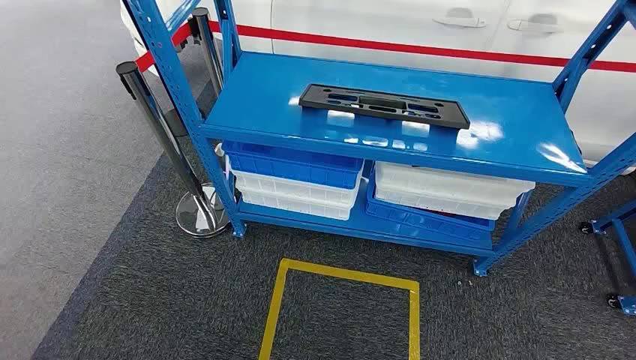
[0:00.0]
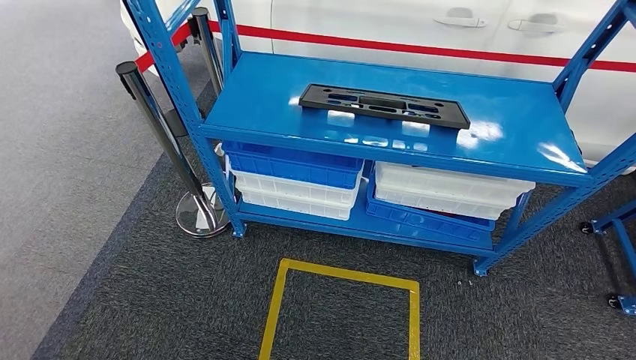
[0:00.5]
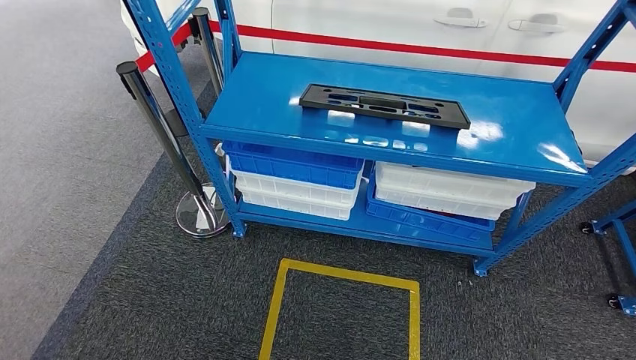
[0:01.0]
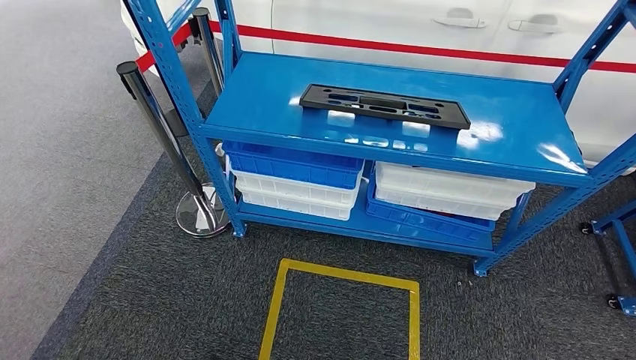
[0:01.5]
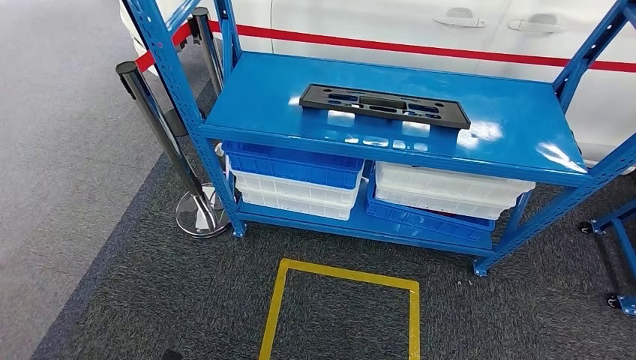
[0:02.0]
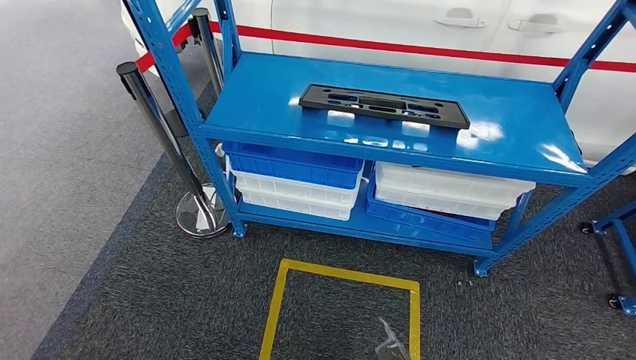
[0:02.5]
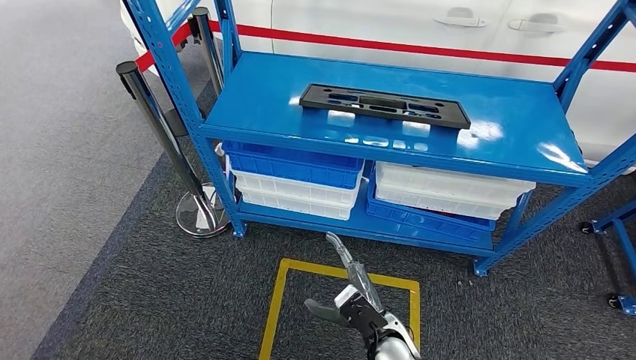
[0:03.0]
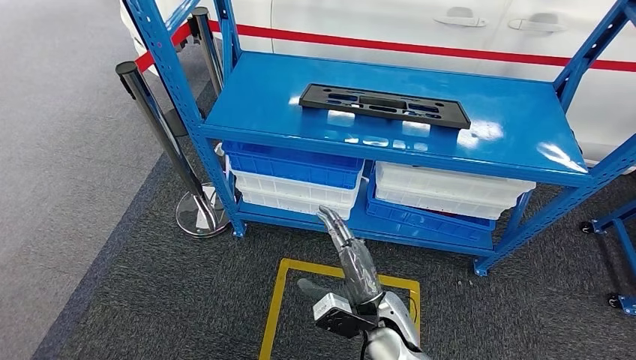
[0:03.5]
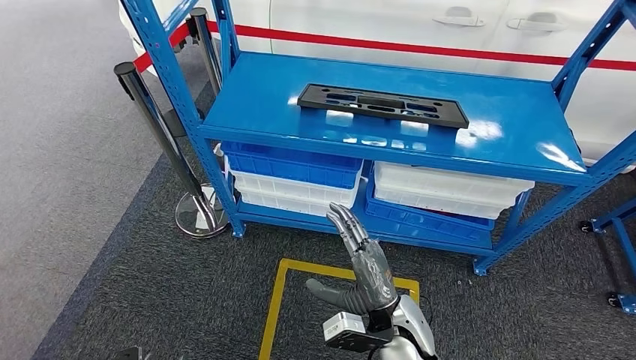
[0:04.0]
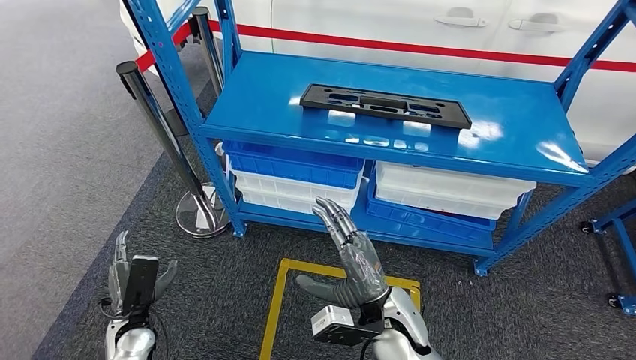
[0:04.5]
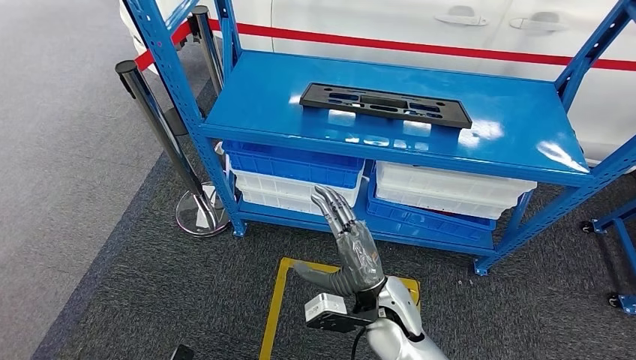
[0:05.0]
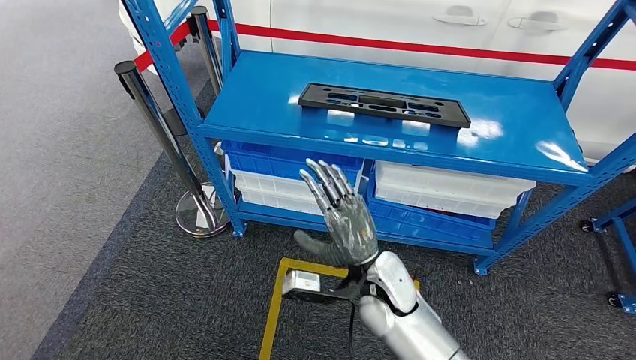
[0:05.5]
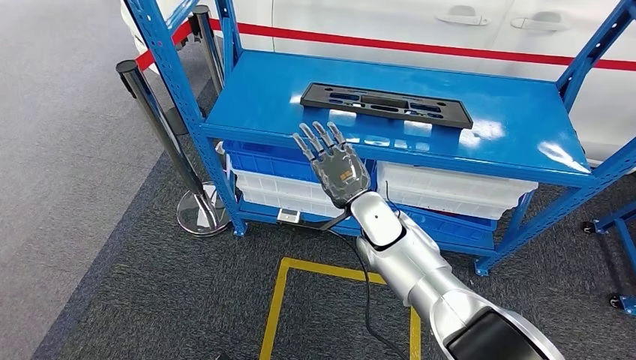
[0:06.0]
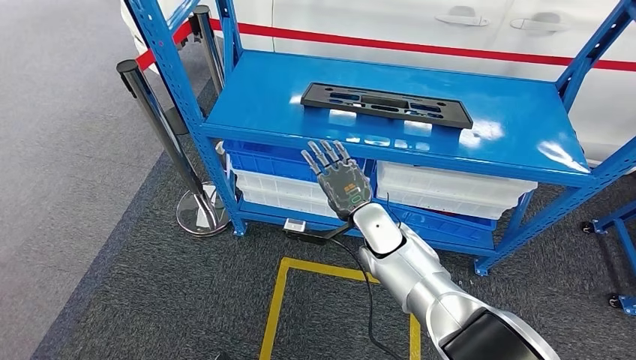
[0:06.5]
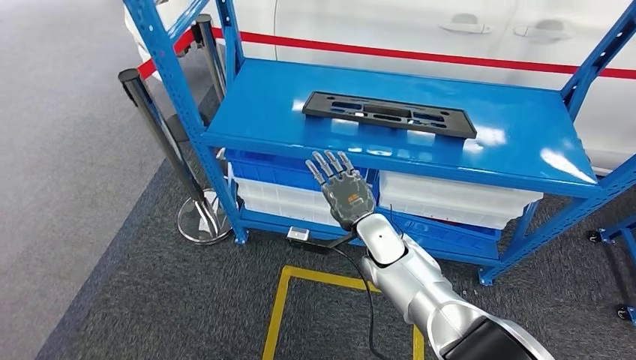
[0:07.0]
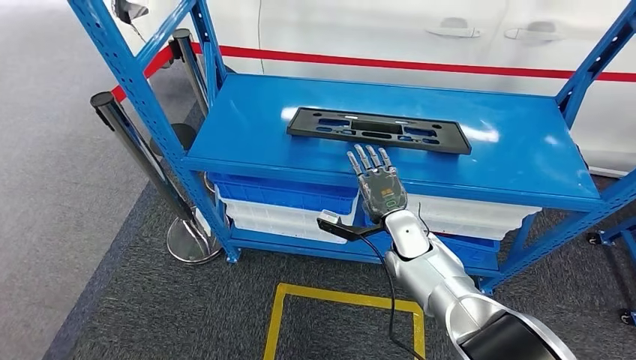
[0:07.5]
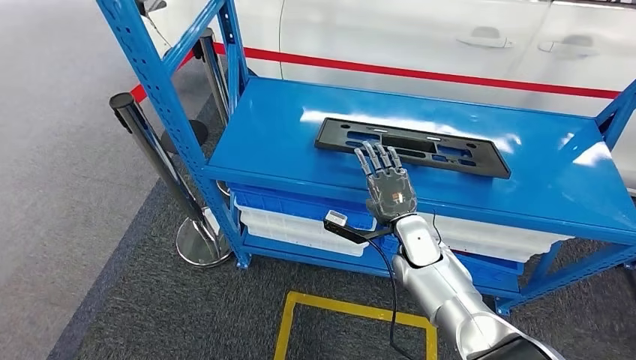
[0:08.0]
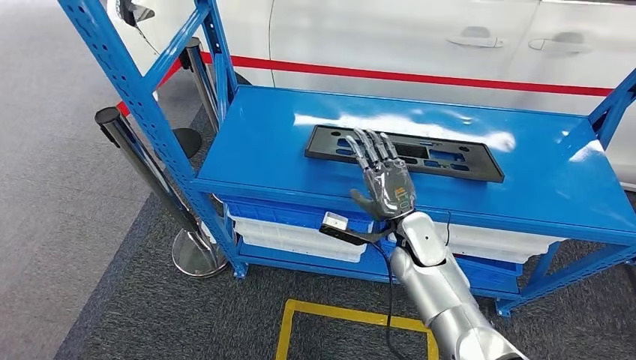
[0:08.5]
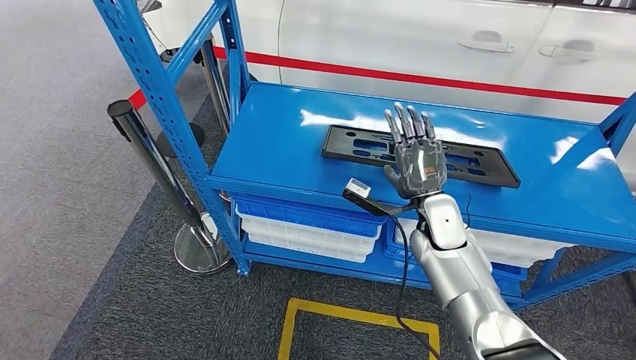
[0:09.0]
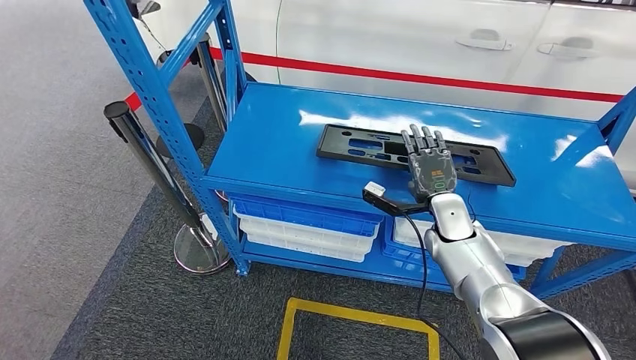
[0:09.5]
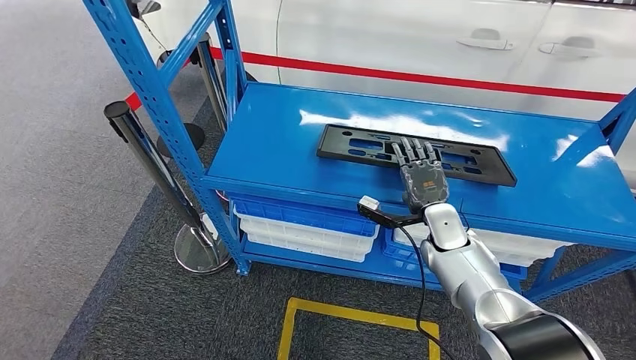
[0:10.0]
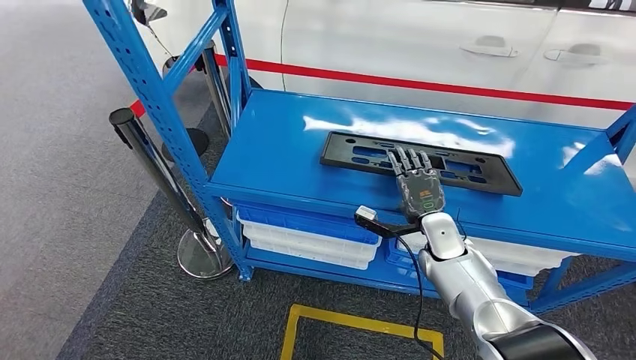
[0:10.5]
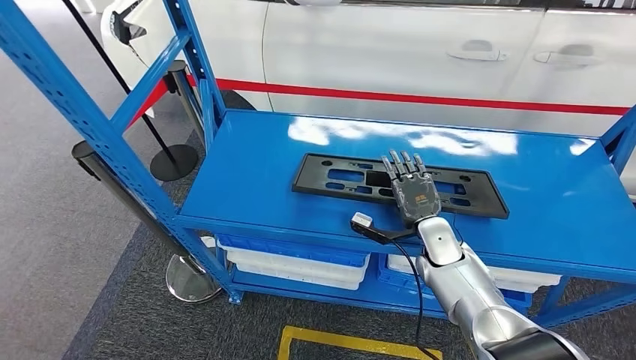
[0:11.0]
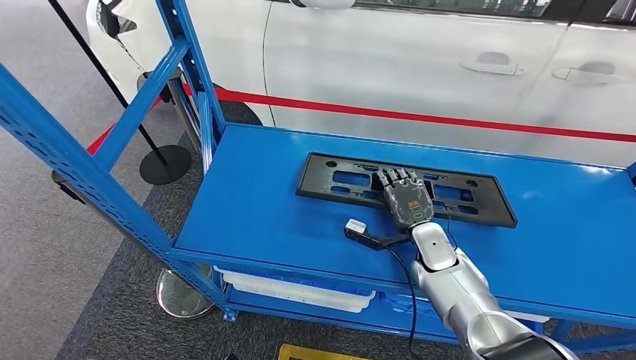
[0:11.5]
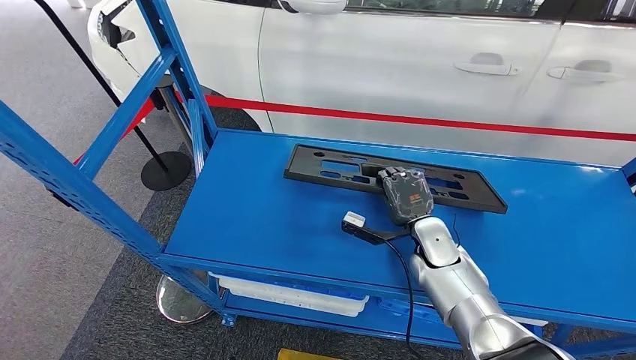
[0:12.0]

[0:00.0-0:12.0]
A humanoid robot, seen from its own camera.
0:02.0 to 0:04.0: The right hand shifts about 35 cm upward, forward and to the left. The left hand moves approximately 10 cm to the right and comes back.
0:04.0 to 0:06.0: The left hand travels to the right by about 5 cm, and moves roughly 15 cm forward and comes back, while the right hand shifts some 15 cm forward and upward.

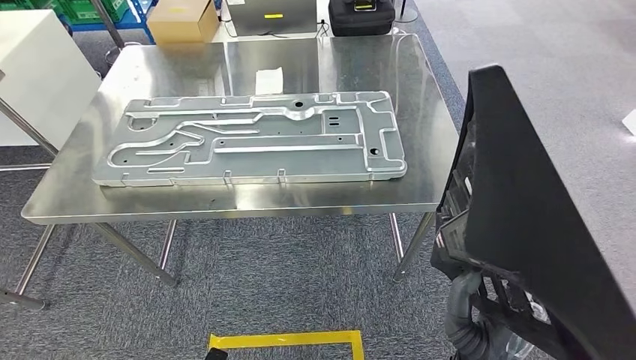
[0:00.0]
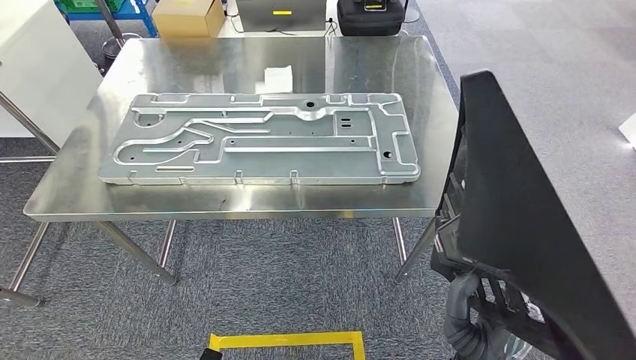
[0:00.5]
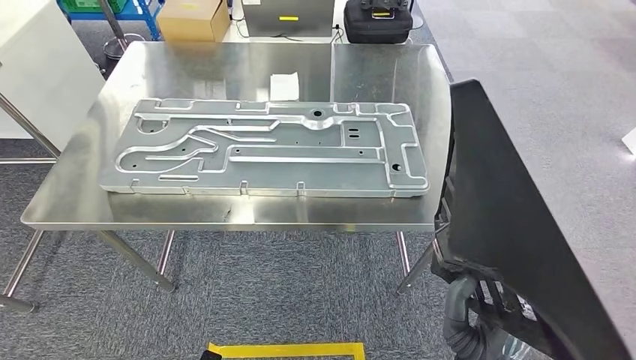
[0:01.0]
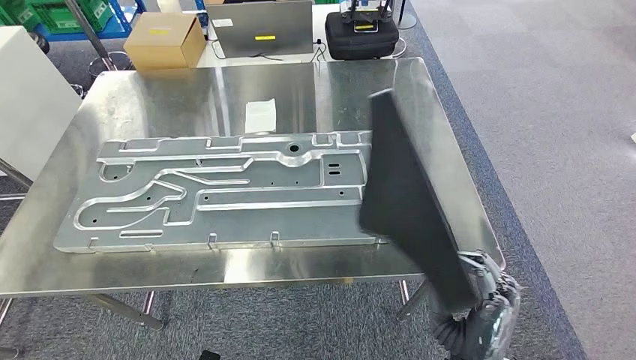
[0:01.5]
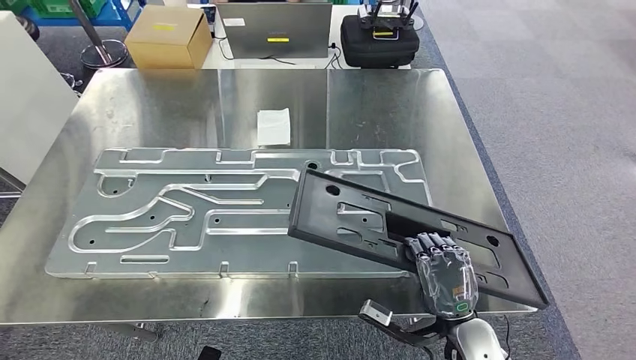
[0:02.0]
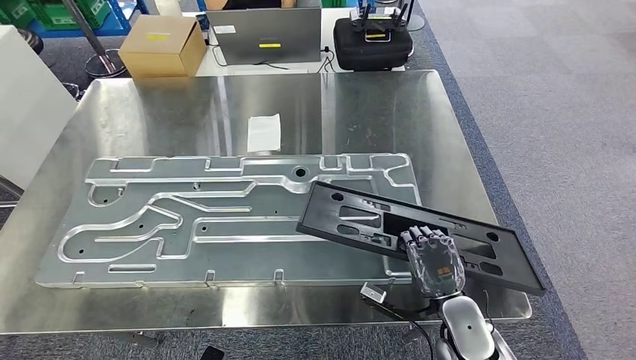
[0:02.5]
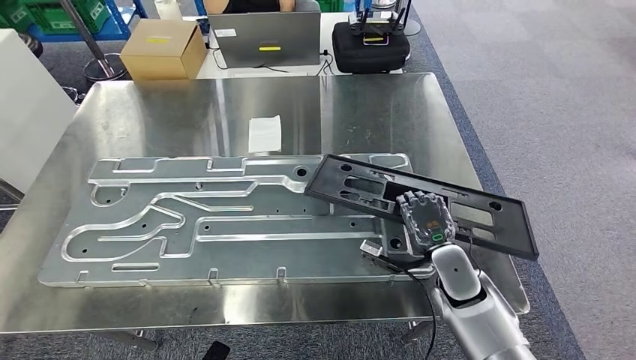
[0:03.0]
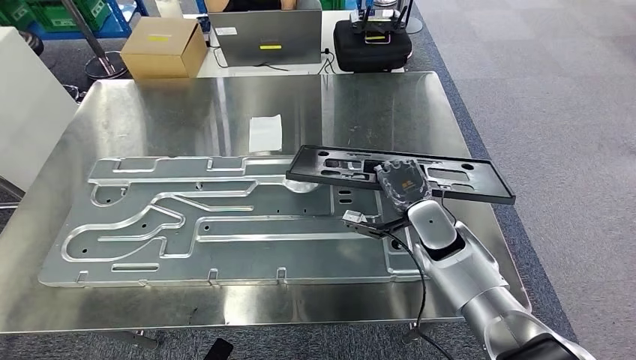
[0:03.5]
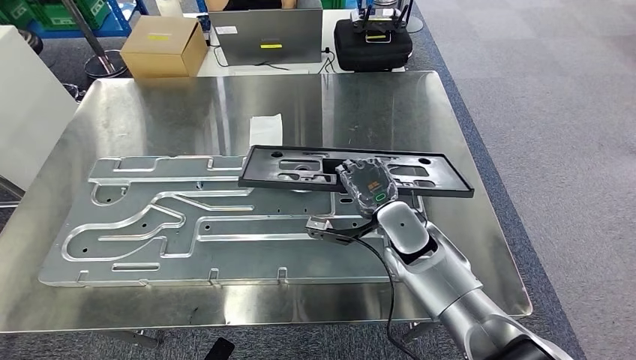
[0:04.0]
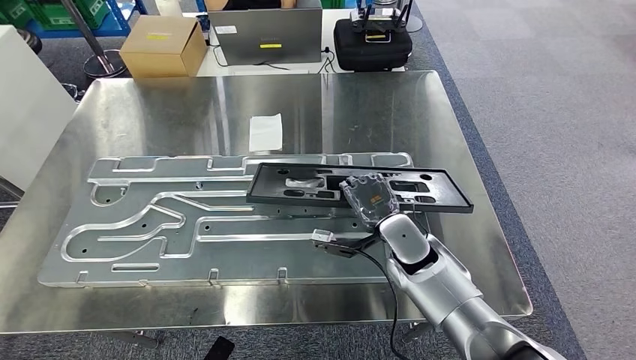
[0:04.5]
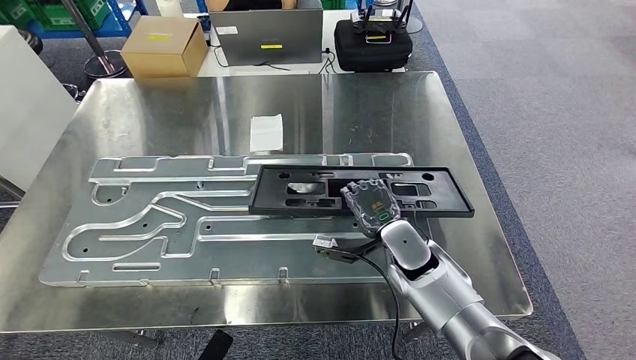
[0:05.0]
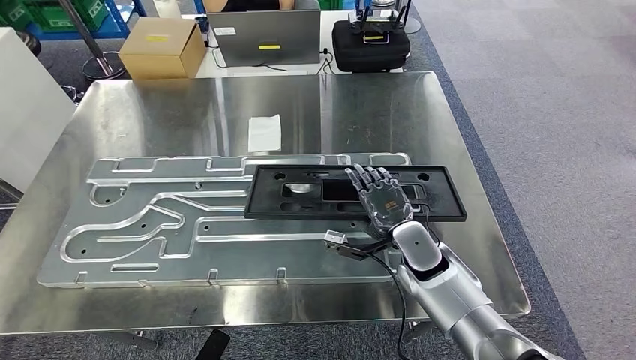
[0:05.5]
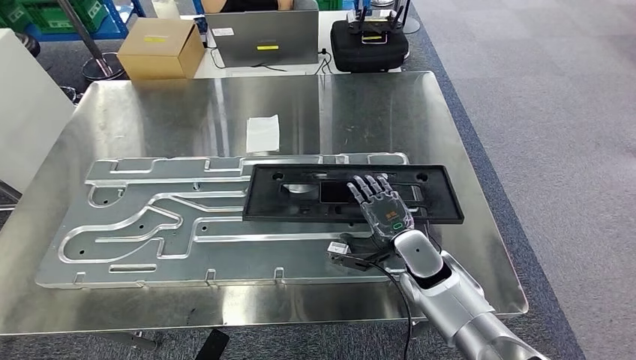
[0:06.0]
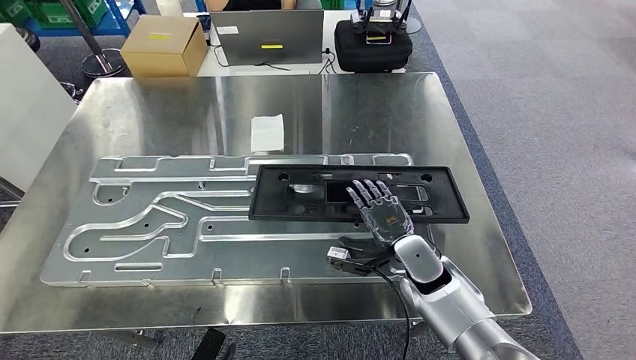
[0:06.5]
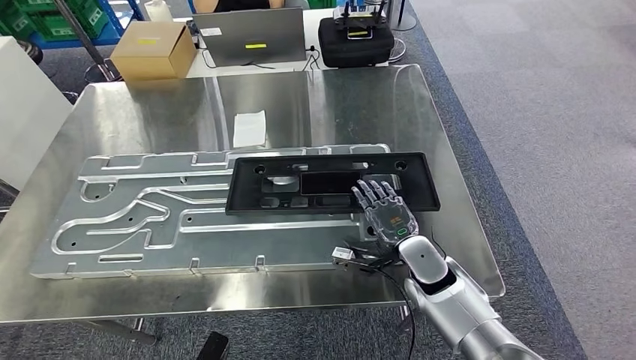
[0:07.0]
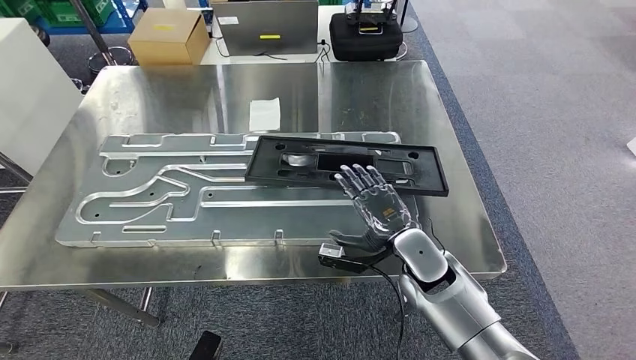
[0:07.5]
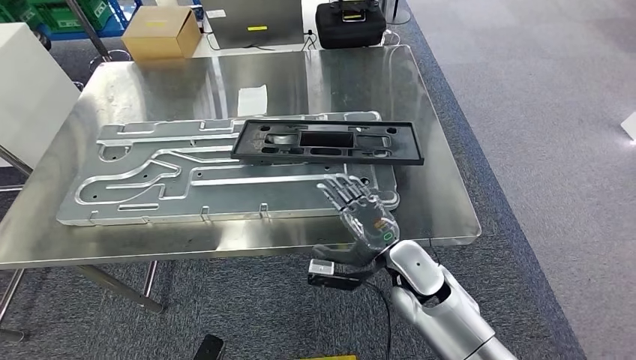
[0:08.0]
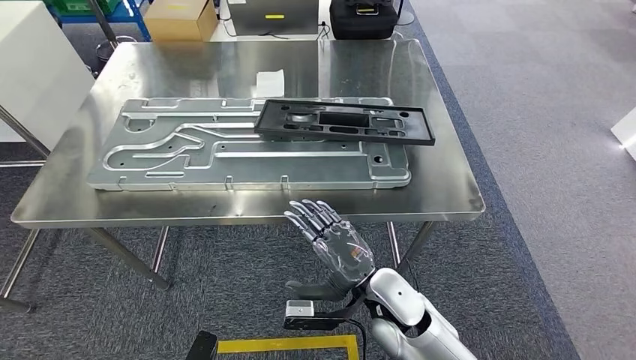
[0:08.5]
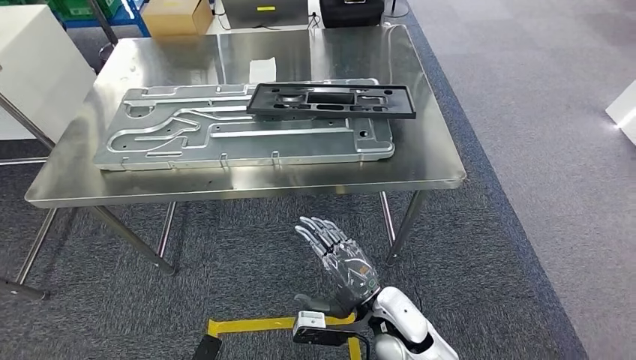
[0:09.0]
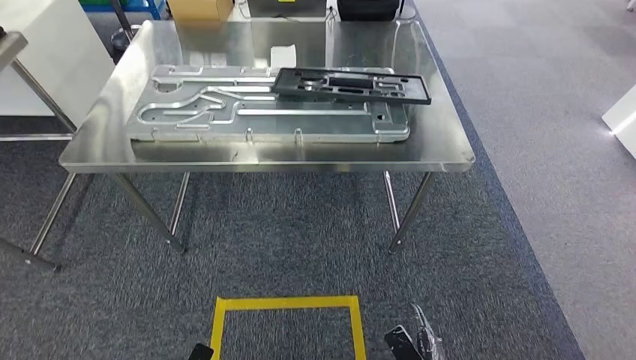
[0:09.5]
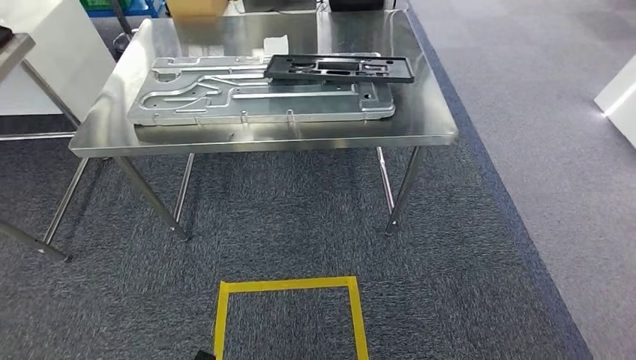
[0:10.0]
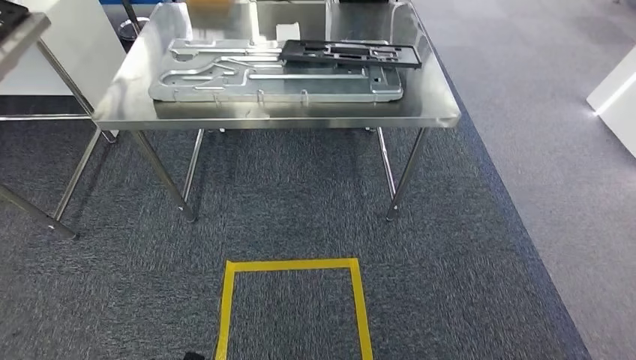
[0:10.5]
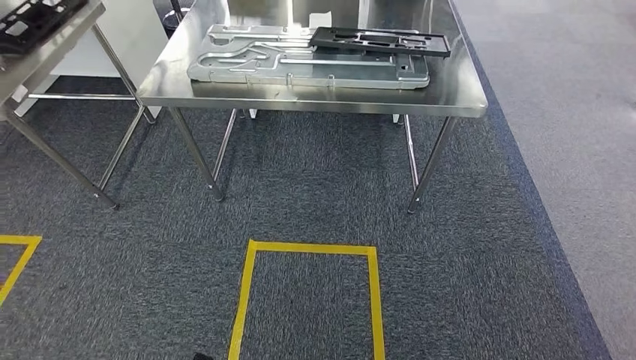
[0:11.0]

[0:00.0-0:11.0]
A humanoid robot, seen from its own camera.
0:03.5 to 0:05.5: The right hand changes place by about 5 cm.
